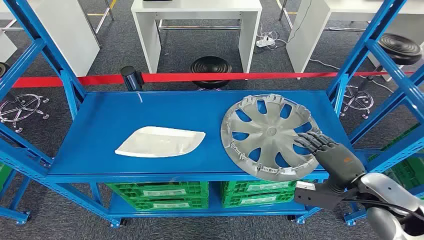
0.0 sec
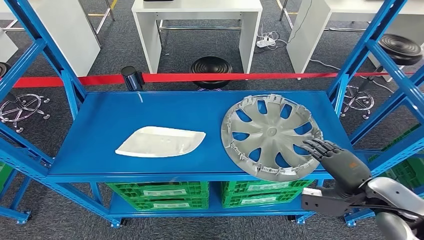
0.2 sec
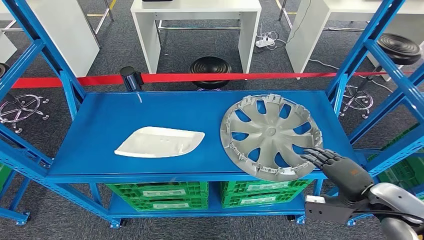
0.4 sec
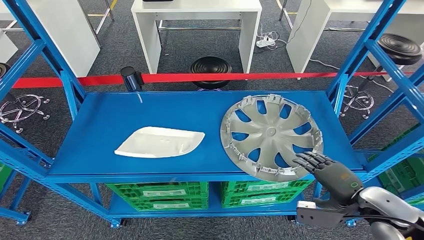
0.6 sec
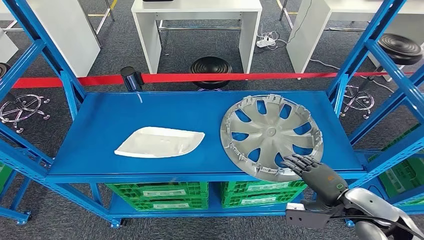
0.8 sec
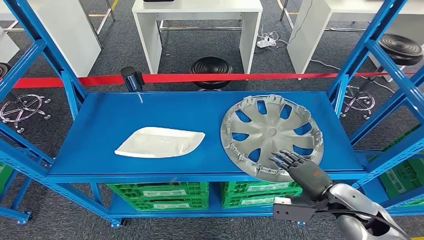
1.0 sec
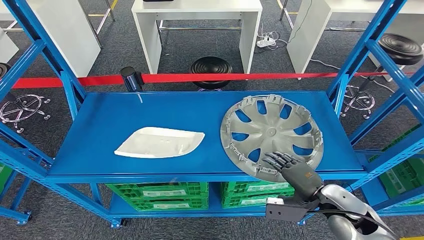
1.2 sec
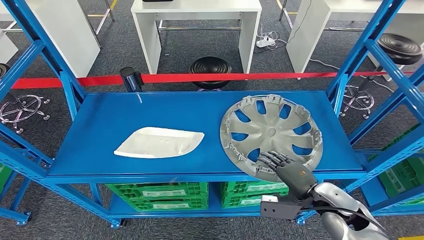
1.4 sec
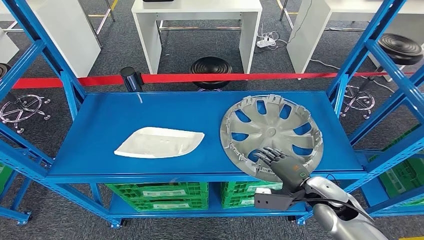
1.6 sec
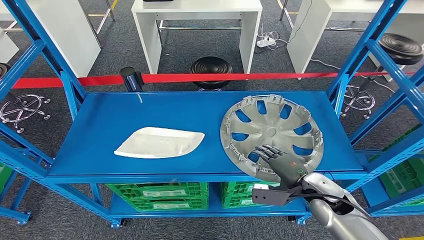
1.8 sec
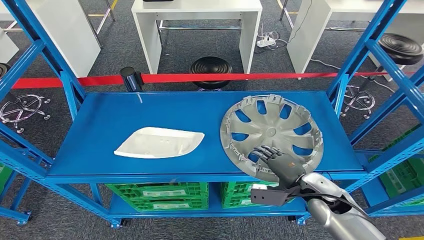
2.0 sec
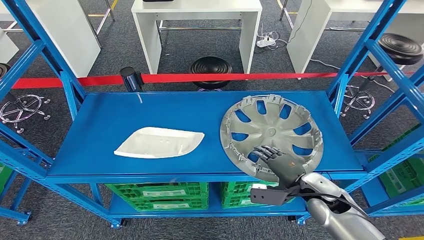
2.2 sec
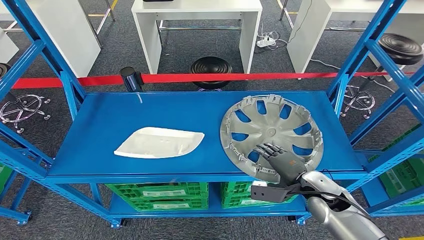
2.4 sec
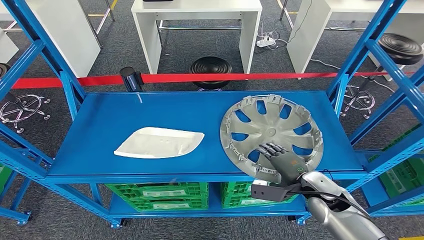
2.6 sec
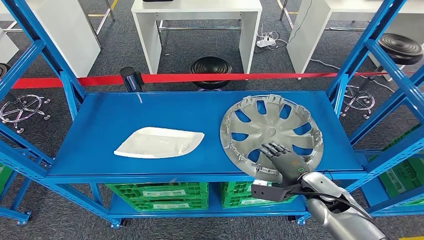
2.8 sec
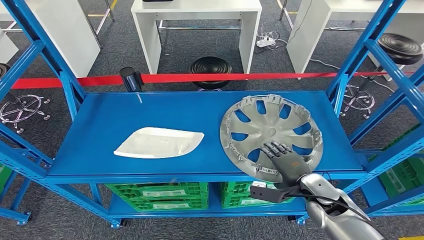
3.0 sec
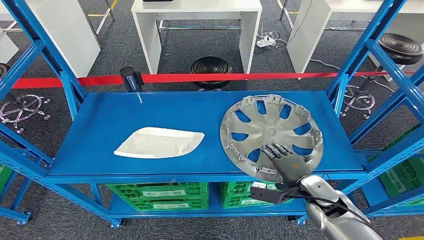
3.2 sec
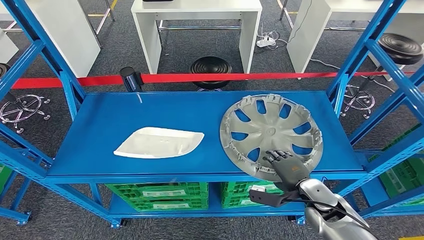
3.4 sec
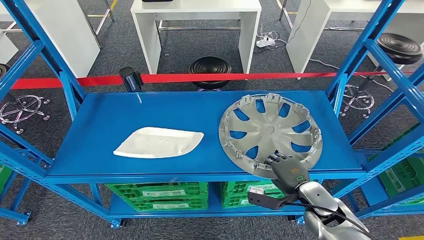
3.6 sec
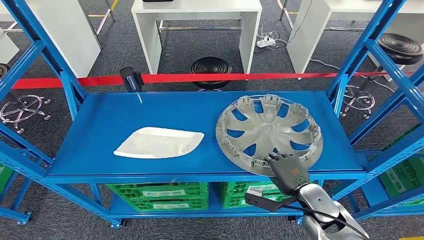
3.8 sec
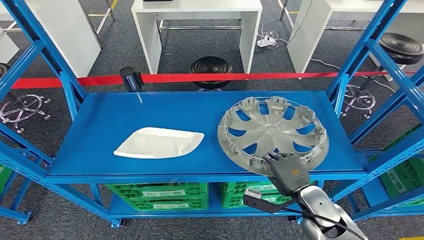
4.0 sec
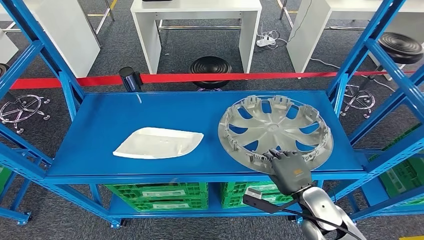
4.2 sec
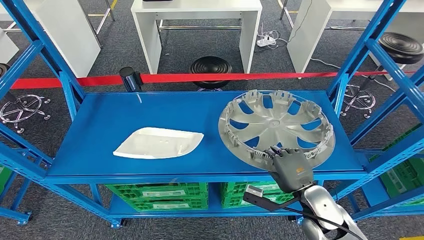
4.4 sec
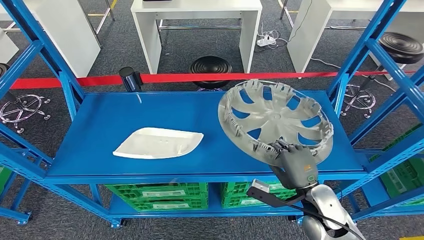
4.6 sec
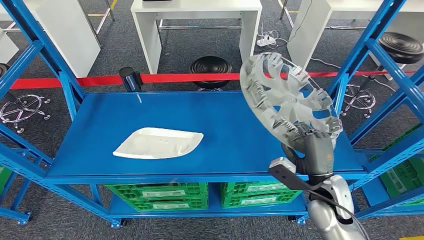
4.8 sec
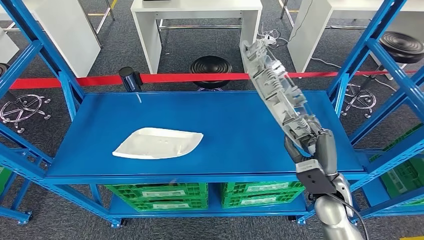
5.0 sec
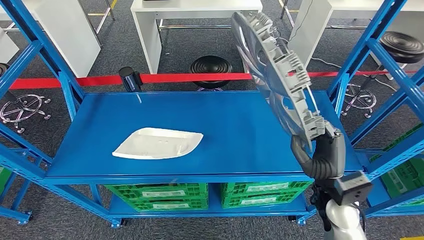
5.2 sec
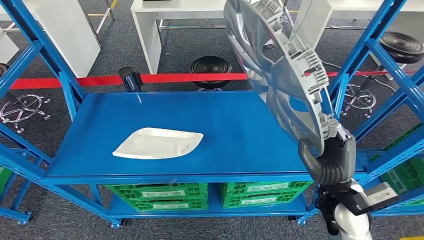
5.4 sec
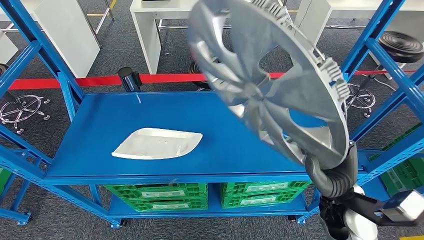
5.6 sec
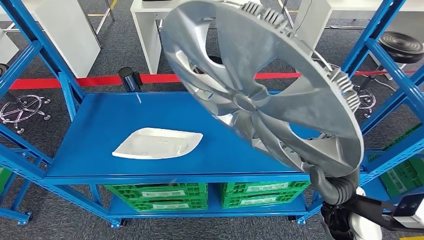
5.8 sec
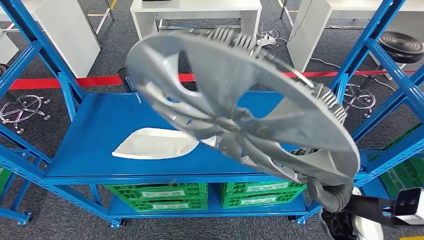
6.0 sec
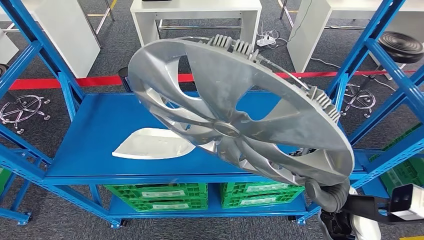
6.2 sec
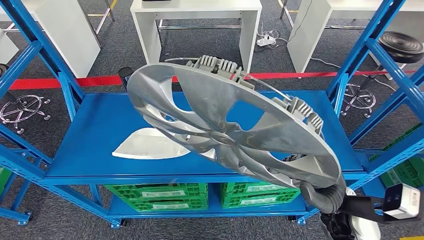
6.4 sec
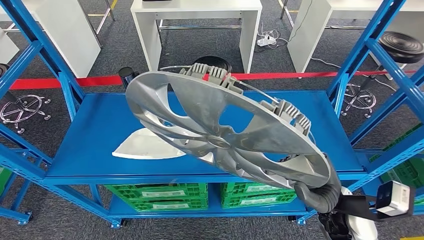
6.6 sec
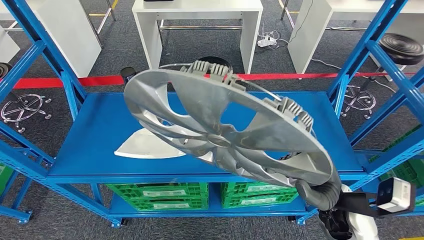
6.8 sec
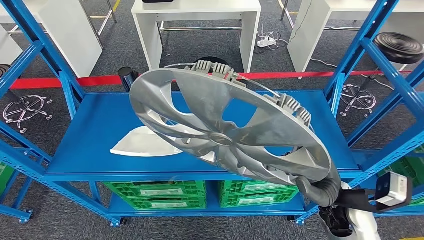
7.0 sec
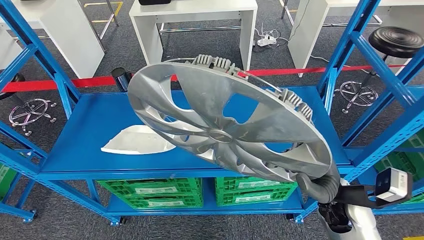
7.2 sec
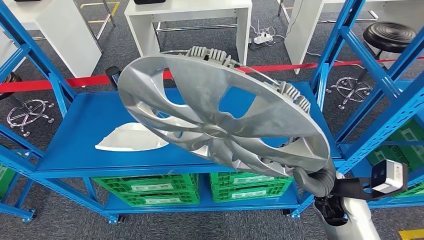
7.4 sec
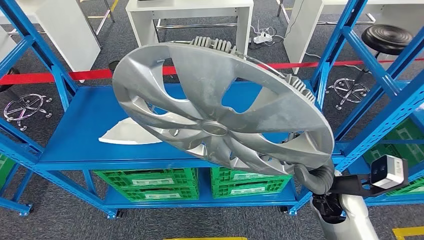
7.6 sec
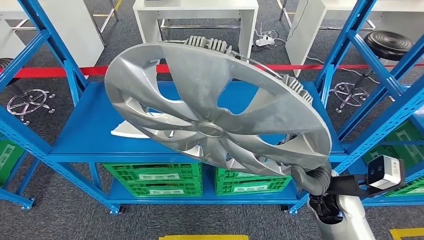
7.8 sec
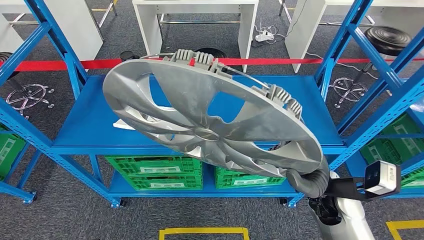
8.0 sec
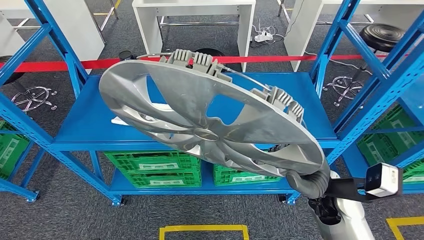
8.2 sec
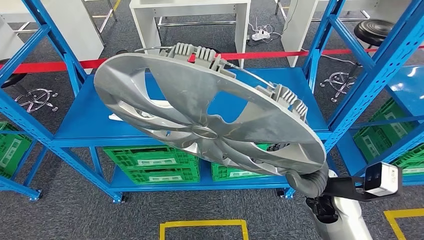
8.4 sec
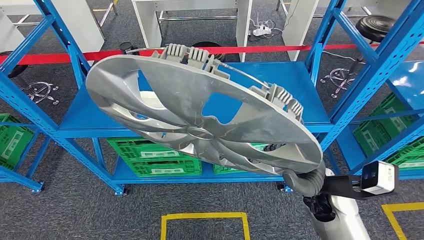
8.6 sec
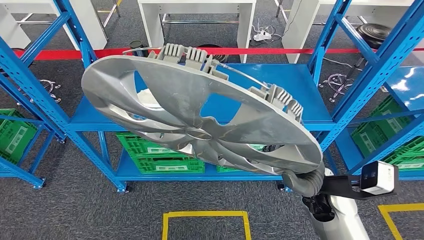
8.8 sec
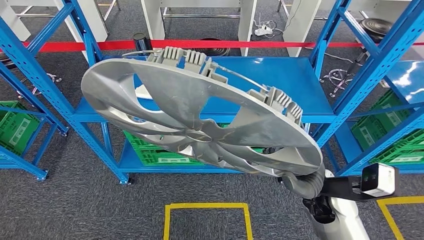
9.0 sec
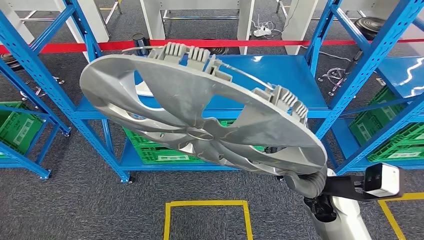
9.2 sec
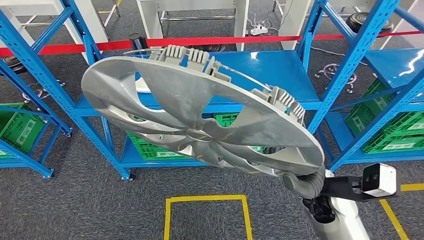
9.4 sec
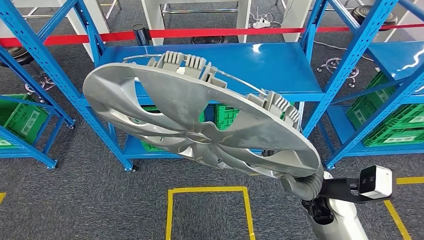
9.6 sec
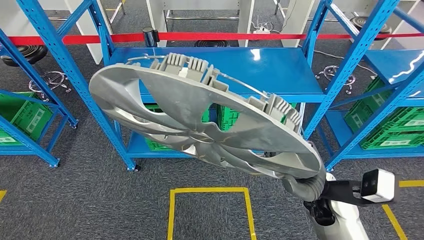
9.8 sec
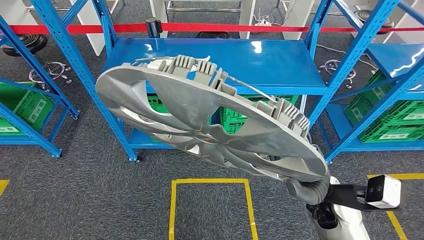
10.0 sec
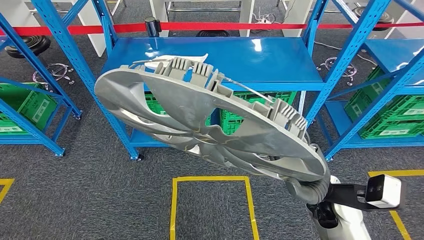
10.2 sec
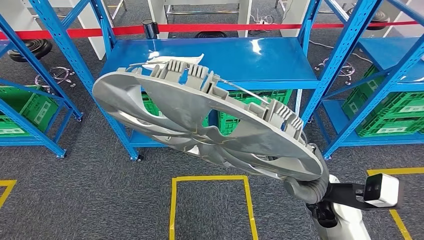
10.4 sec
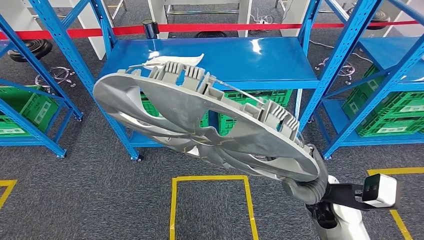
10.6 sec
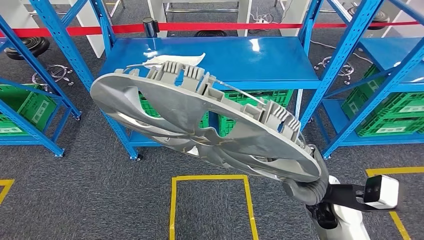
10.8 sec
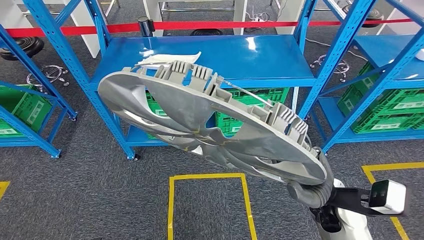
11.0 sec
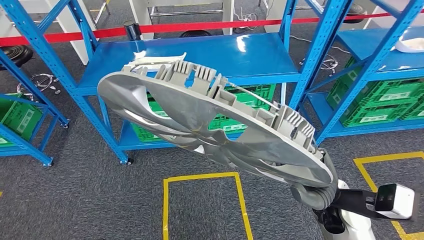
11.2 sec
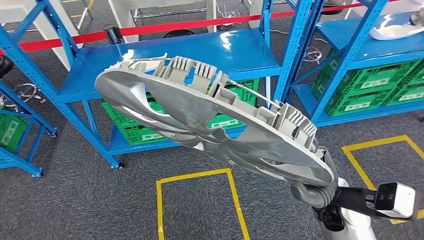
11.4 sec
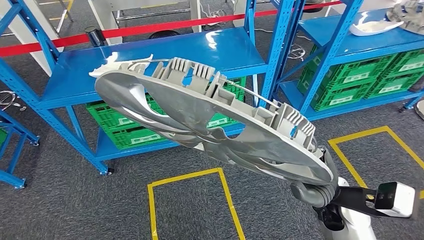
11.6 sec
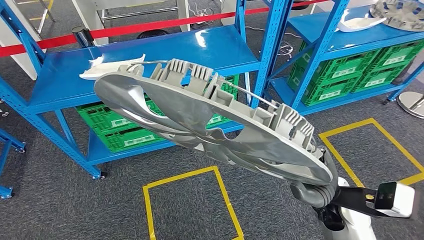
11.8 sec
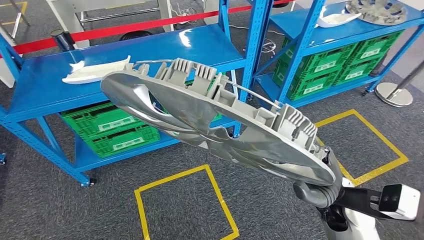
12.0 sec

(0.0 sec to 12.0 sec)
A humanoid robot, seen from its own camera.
Step, 0.0 sec - 5.4 sec: Pick up the small parts from the shelf.
1.6 sec - 3.0 sec: The hands move only a little.
3.0 sec - 4.4 sec: The right hand ends up approximately 5 cm from where it was.

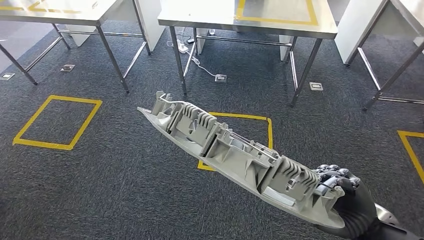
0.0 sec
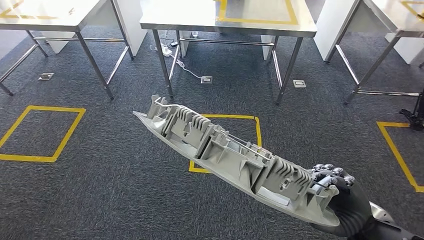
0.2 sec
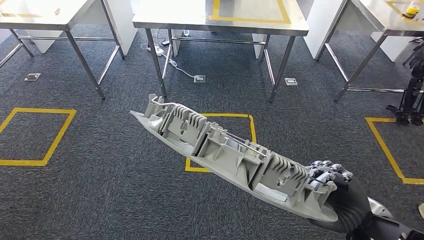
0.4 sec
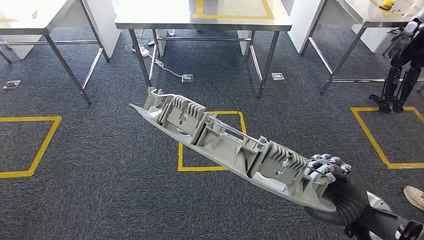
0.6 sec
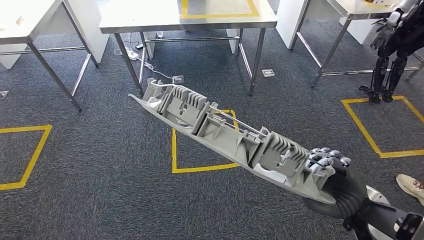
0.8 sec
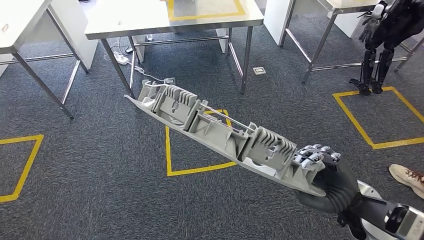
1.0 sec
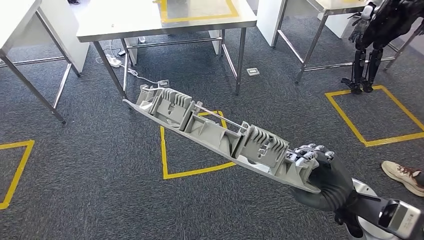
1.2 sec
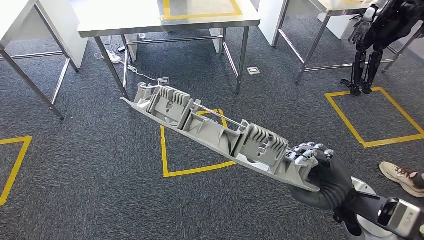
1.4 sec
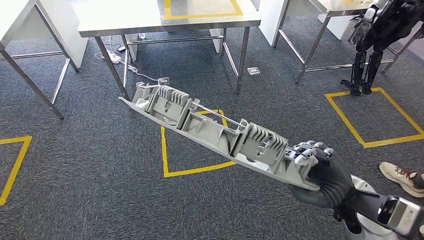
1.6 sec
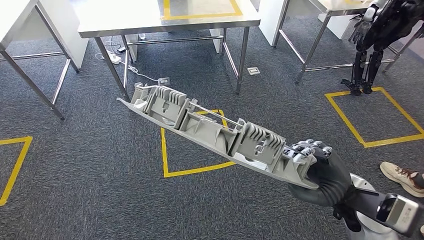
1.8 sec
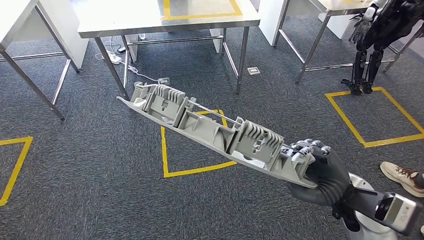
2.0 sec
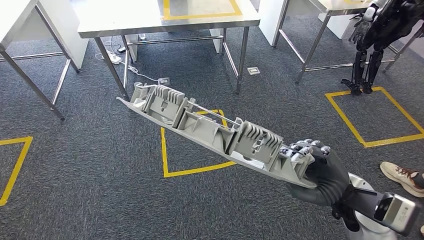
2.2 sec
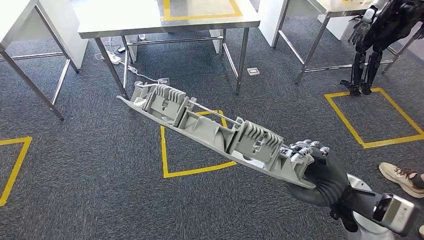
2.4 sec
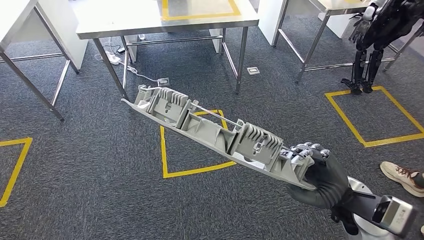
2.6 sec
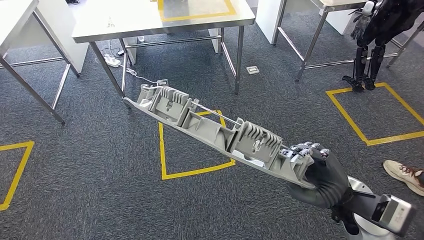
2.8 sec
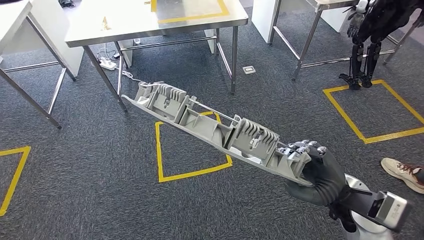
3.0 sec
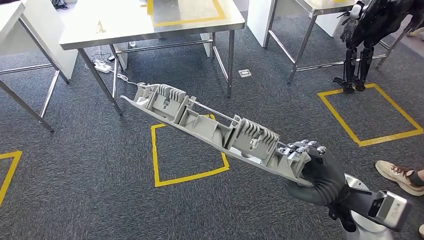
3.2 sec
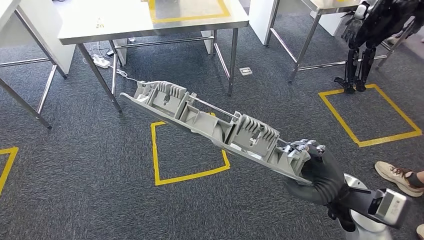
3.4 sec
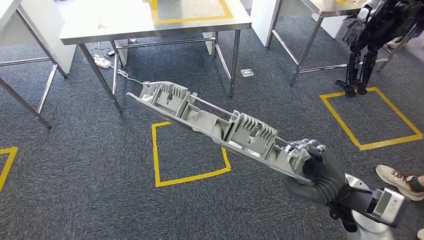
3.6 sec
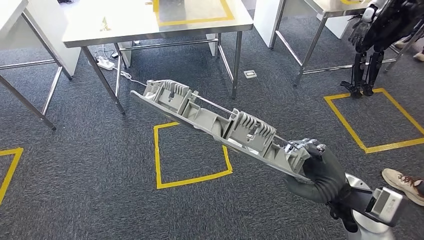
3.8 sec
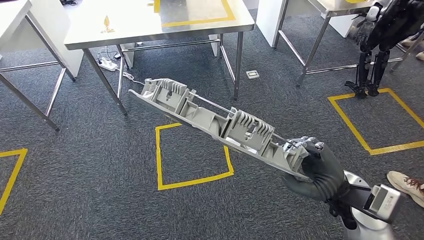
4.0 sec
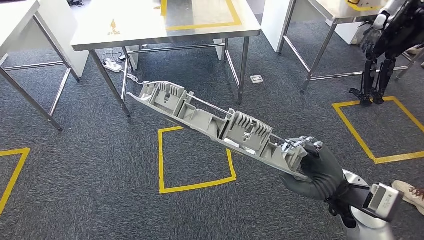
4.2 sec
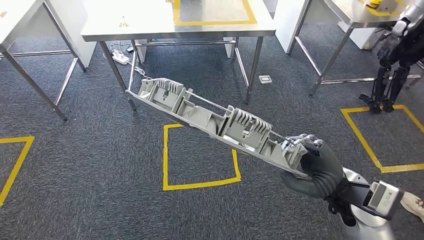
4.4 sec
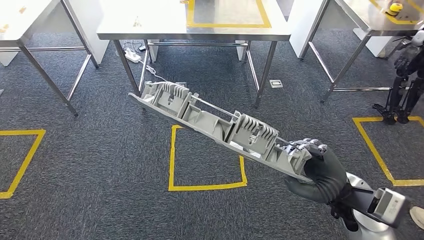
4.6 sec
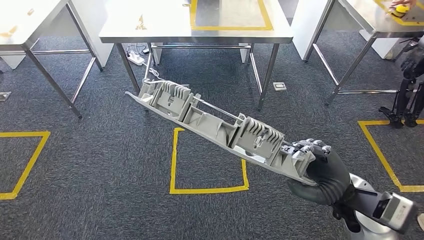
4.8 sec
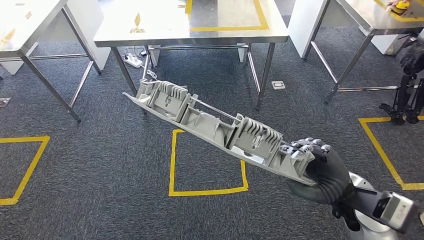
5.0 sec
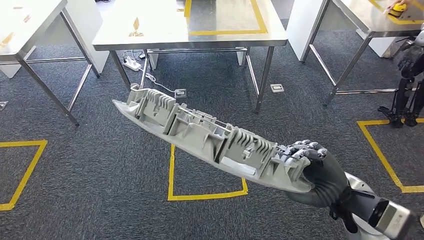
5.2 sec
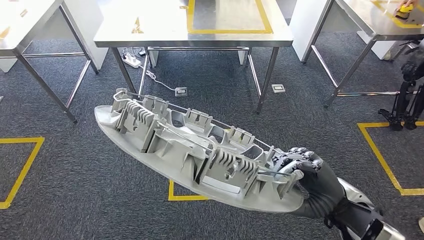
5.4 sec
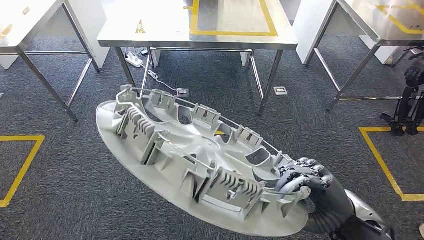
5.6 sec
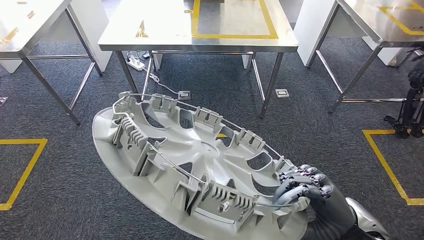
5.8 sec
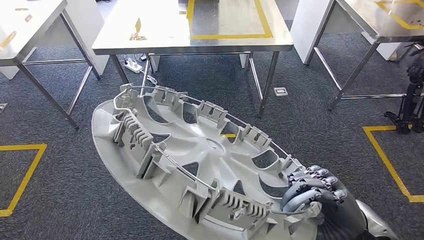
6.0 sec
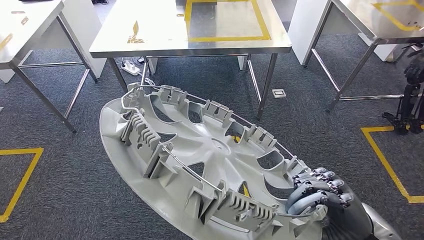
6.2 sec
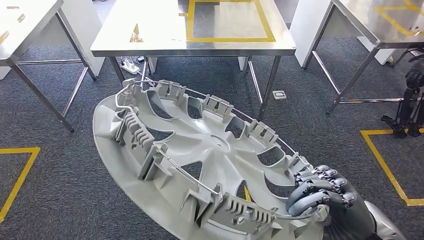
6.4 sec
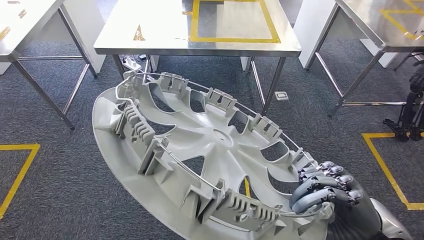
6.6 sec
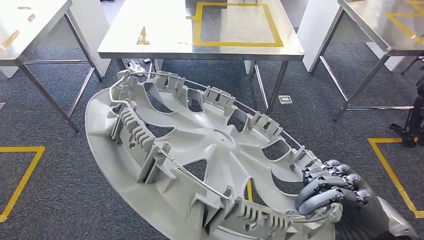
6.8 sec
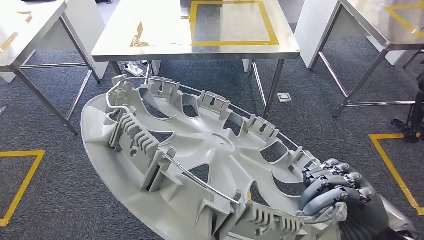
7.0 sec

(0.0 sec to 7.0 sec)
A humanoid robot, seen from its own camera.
1.4 sec - 2.8 sec: Neither hand changes place.
